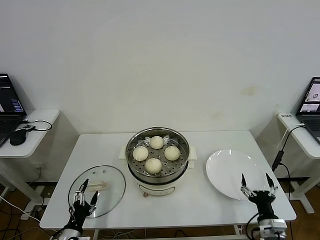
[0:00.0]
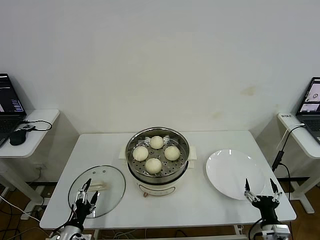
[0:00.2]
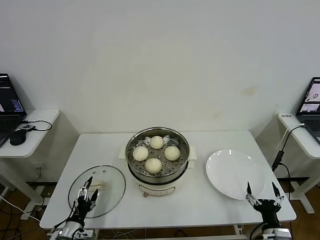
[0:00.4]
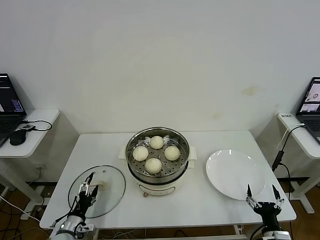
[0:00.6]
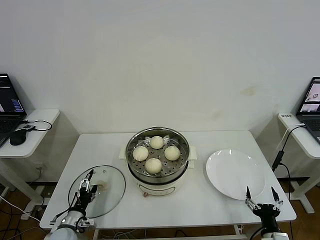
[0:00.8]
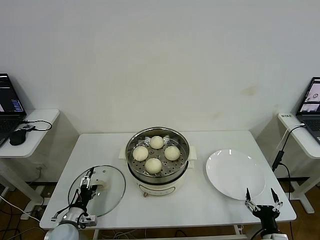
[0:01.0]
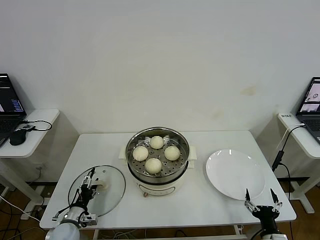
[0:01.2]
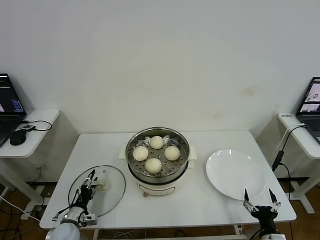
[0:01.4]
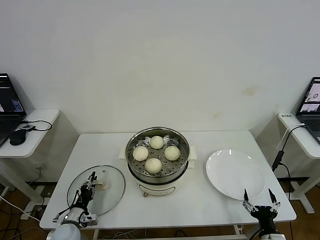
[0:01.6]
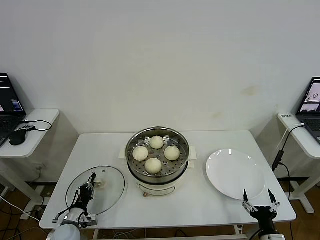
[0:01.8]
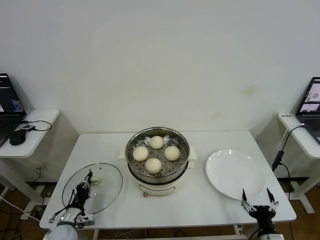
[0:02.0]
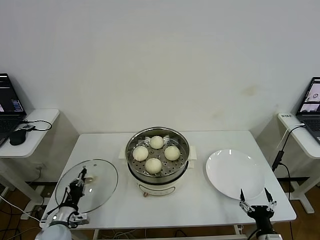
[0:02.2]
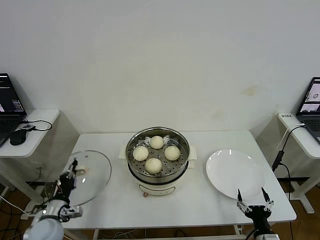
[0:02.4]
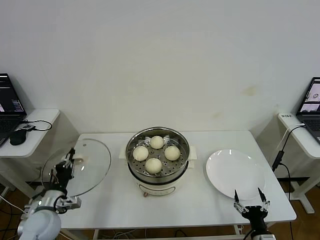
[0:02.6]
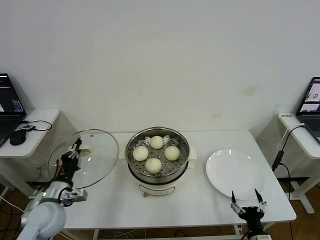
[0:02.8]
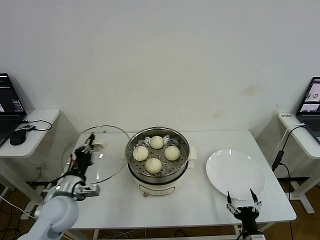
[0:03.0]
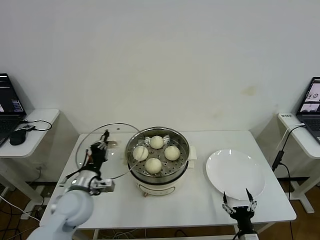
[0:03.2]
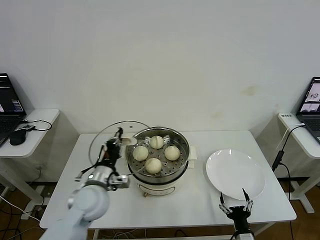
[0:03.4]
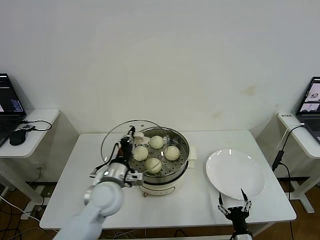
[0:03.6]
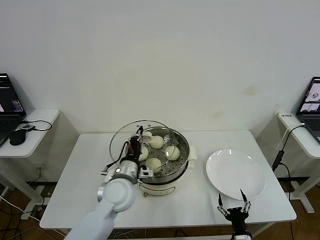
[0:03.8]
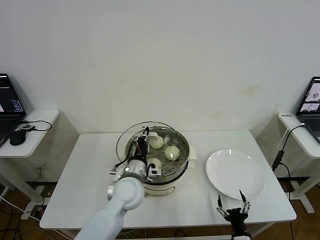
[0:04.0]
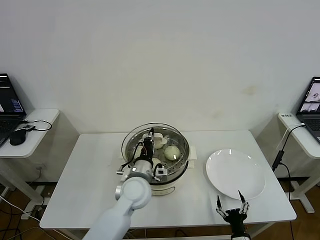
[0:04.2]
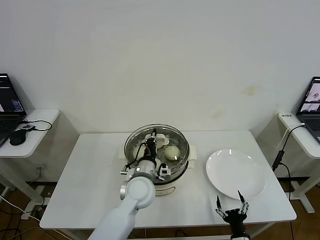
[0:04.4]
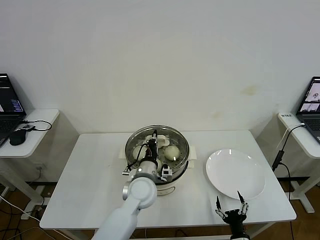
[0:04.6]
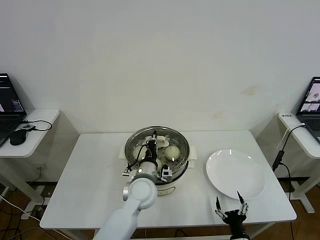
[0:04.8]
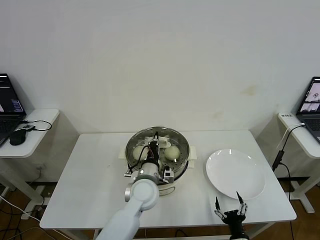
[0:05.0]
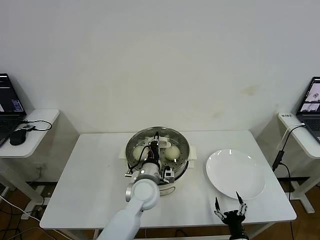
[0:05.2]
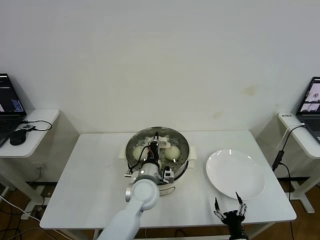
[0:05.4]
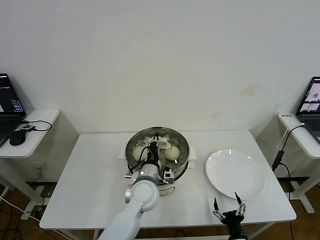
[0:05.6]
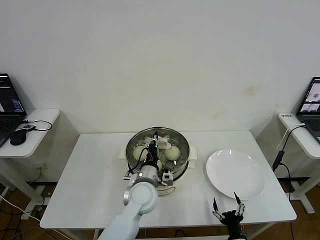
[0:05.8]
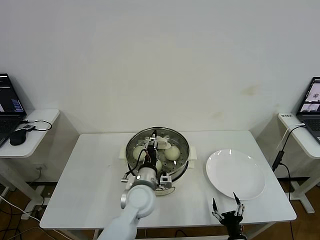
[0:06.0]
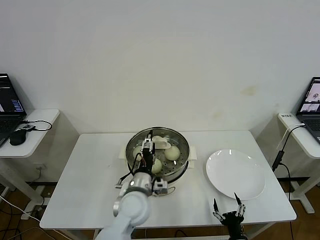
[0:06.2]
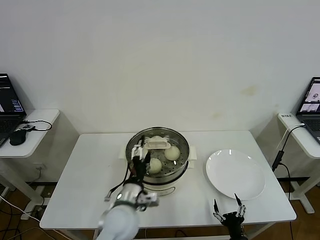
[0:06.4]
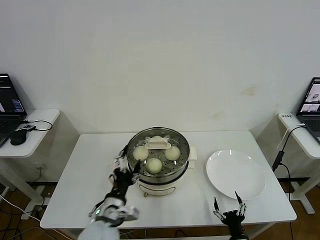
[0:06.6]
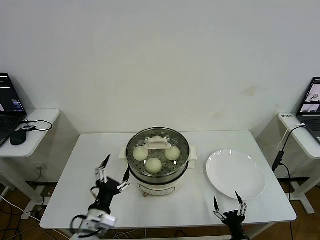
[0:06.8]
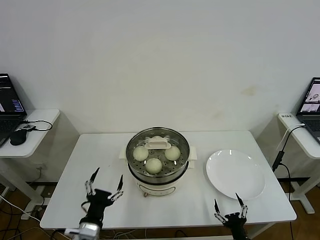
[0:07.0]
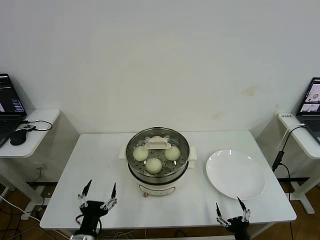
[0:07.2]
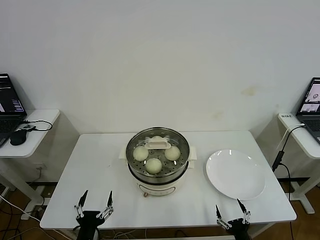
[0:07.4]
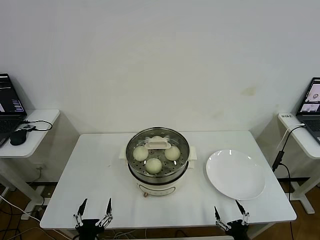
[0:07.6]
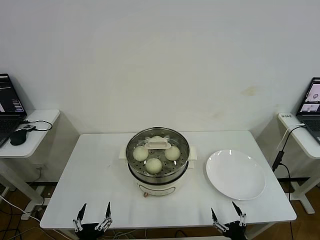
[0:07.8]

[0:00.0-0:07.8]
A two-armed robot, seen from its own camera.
Step, 0:02.0 to 0:06.2: Place the pot lid on the steamer with left gripper.
0:00.0 to 0:01.6: The left gripper goes about 10 cm forward, and closes its fingers.
0:01.6 to 0:03.2: The left gripper shifts roughly 20 cm upward and to the right, and closes, while the right gripper travels to the left by some 5 cm.
0:03.2 to 0:04.6: The left gripper heads to the right, covering roughly 20 cm.
0:04.6 to 0:06.2: The left gripper opens up.
0:06.2 to 0:07.8: The left gripper is displaced backward, to the left and downward by about 30 cm. The right gripper ends up approximately 5 cm from where it was.

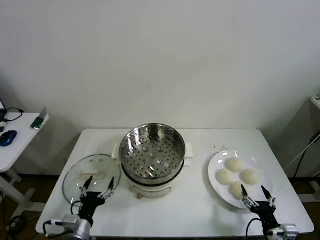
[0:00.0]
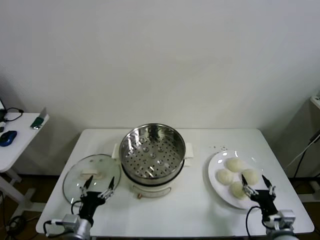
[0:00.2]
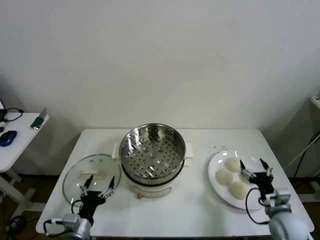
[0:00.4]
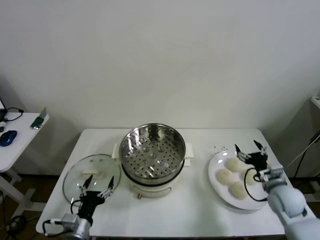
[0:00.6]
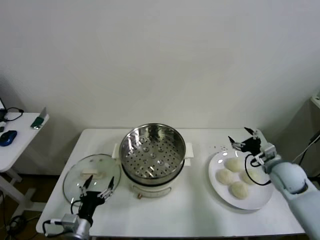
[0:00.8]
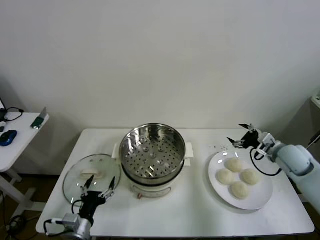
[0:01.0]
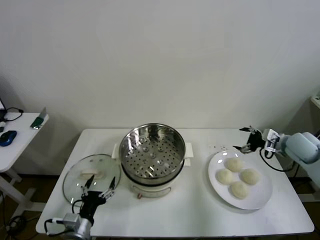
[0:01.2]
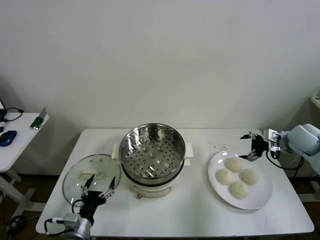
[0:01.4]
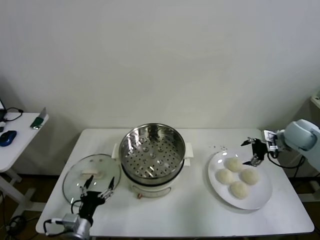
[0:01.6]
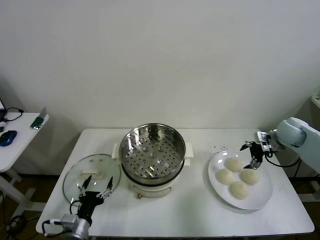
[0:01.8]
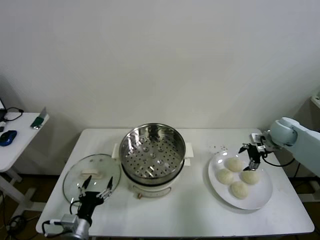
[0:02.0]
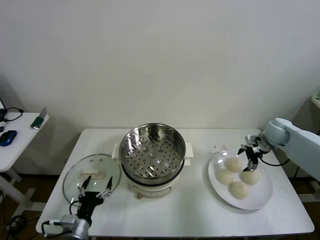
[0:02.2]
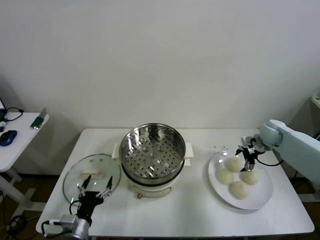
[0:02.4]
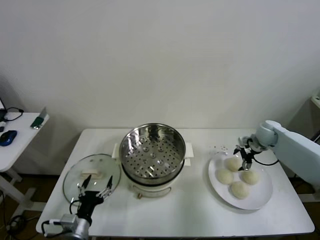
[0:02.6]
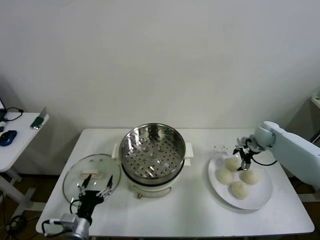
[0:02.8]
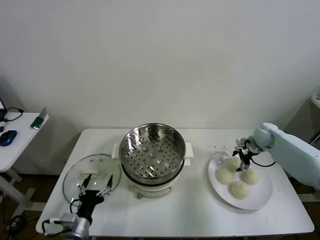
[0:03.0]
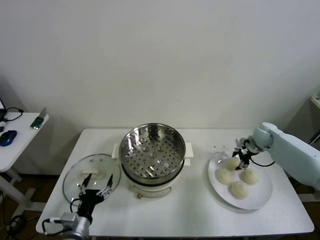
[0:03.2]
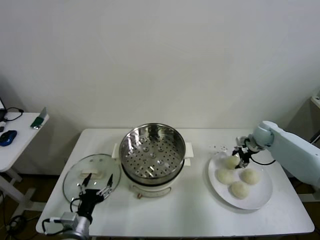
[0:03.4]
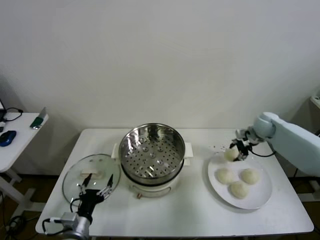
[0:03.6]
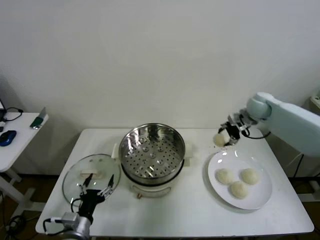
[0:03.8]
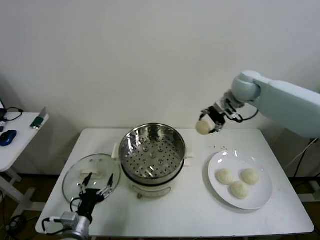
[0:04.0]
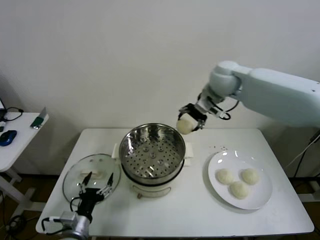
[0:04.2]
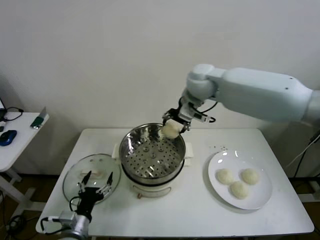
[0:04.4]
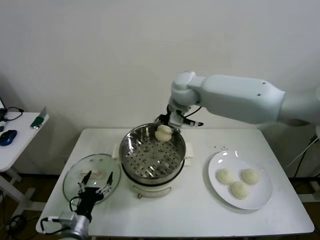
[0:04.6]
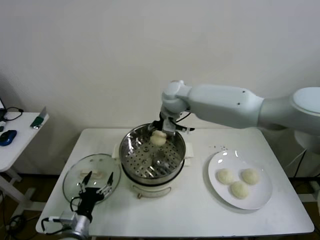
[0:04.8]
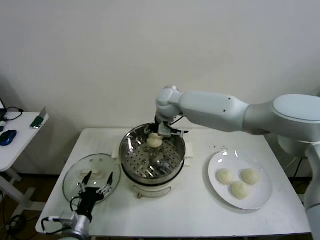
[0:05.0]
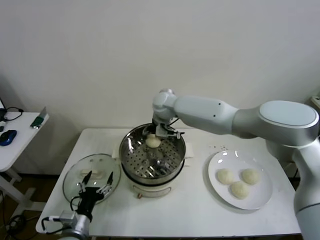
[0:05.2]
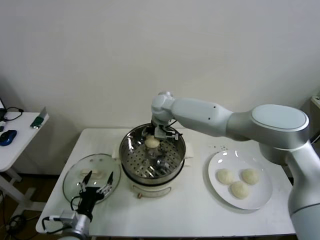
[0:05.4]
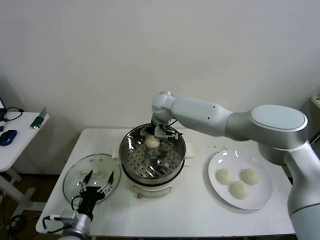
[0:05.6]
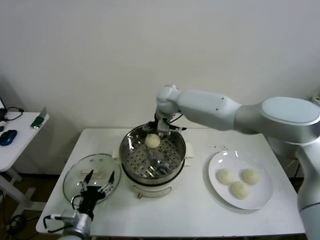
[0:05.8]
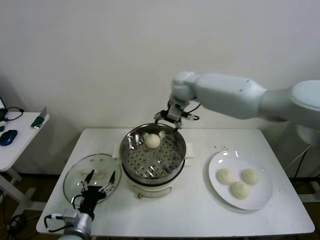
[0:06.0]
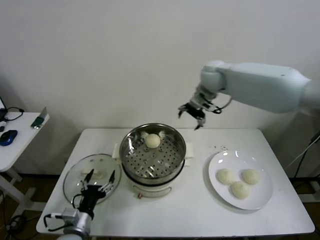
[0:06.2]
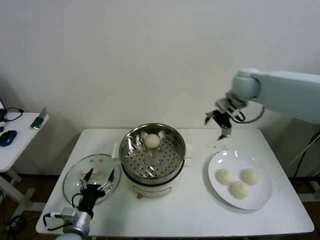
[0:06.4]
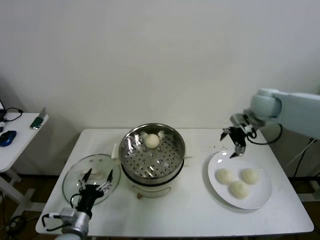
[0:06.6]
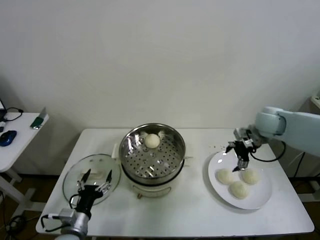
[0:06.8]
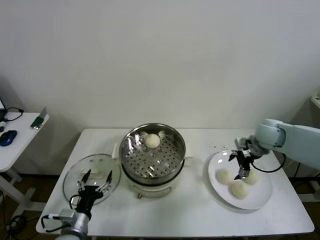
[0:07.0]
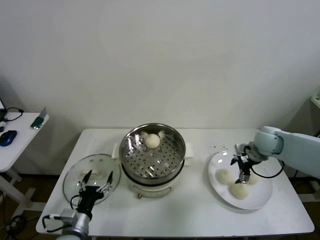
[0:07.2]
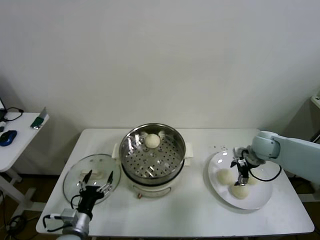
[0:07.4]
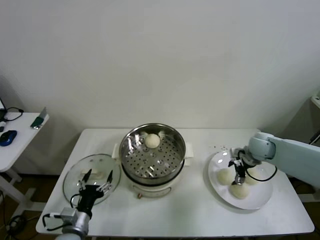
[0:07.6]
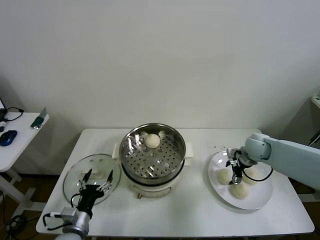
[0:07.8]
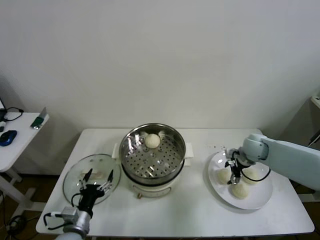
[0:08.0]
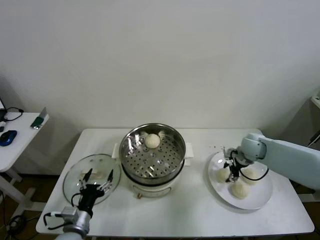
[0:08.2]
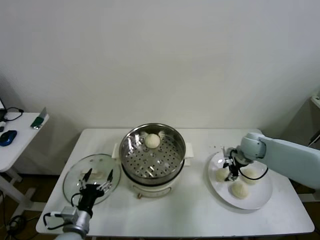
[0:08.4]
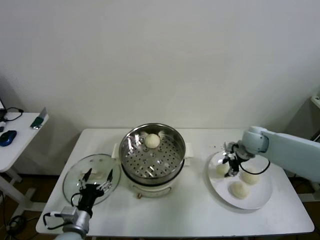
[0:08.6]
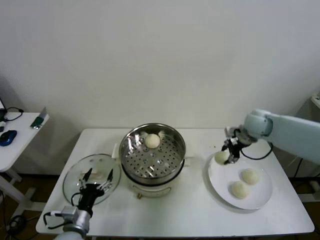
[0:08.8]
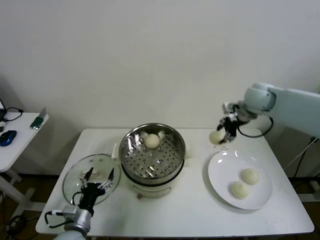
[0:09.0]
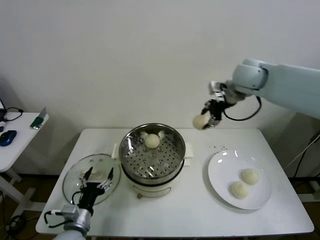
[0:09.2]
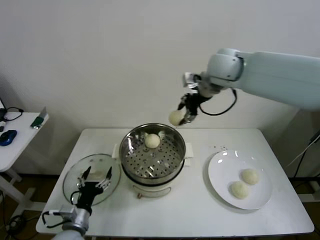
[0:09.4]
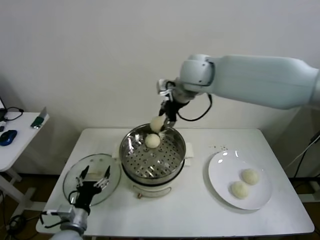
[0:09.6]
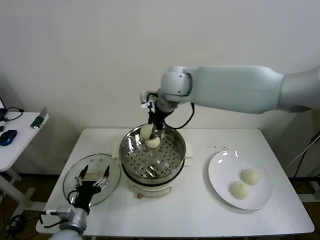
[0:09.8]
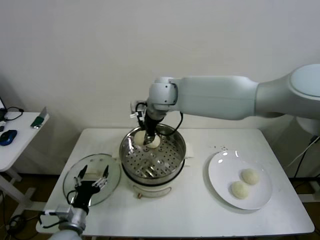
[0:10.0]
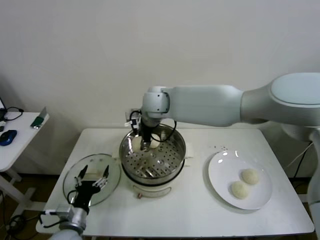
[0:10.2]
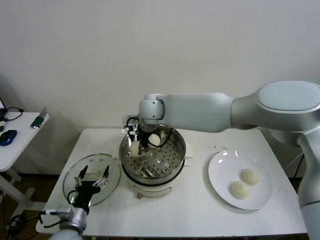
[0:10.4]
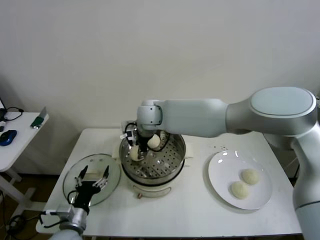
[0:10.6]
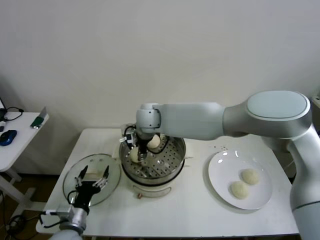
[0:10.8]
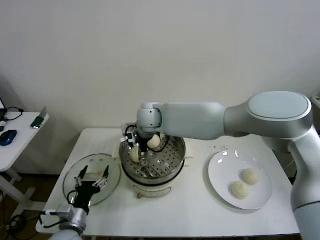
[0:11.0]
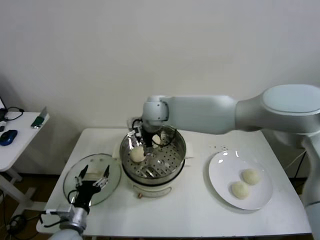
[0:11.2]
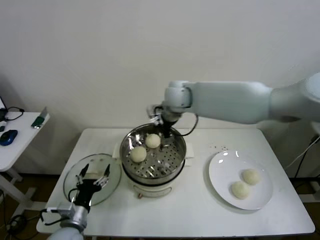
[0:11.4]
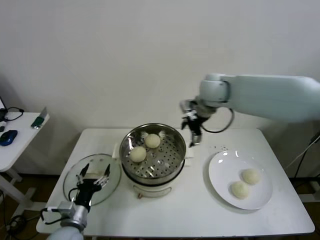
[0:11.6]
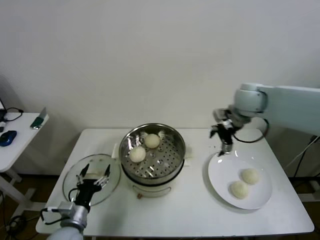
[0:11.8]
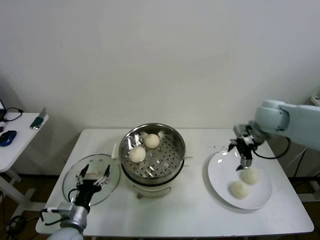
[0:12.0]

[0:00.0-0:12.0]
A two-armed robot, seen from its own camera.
Step, 0:00.0 to 0:03.0: Grasp the baozi in the plate with right gripper.
Step, 0:03.4 to 0:05.6: Place the baozi on the steamer with right gripper.
Step, 0:05.8 to 0:08.0: Grasp the baozi in the plate with right gripper.
Step, 0:08.2 to 0:11.0: Place the baozi on the steamer with right gripper.
0:01.6 to 0:03.0: The right gripper is displaced downward and forward by approximately 10 cm, and closes up.
0:03.0 to 0:04.4: The right gripper moves to the left and upward, about 40 cm.
0:04.4 to 0:06.0: The right gripper travels forward by approximately 5 cm, travels to the left and back again, about 10 cm each way, and opens up.
0:06.0 to 0:07.6: The right gripper goes roughly 35 cm to the right, downward and backward.
0:07.6 to 0:09.0: The right gripper heads upward, covering roughly 20 cm, and closes.
0:09.0 to 0:10.4: The right gripper moves to the left, some 30 cm.
0:10.4 to 0:12.0: The right gripper travels to the right by about 40 cm, and opens up.

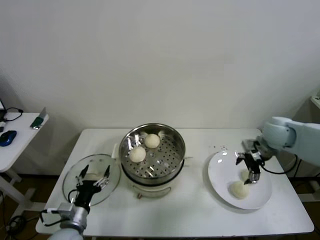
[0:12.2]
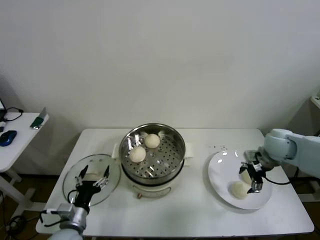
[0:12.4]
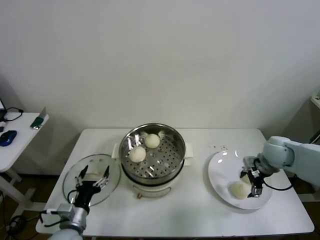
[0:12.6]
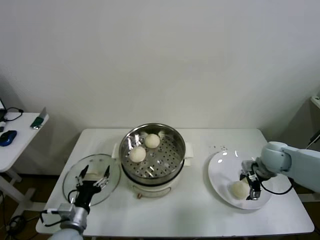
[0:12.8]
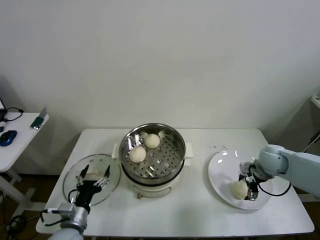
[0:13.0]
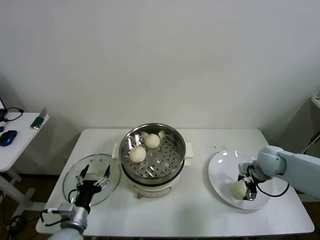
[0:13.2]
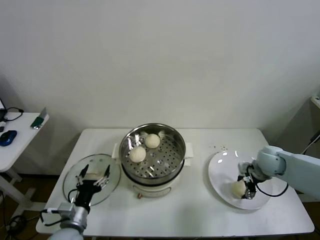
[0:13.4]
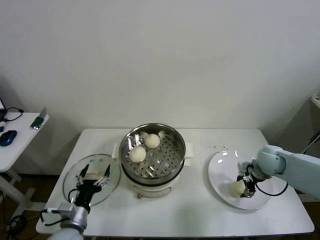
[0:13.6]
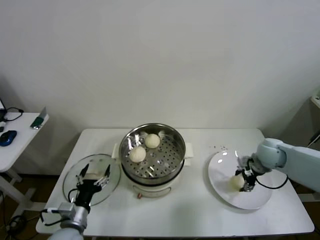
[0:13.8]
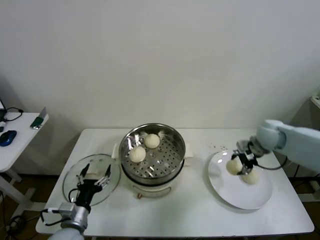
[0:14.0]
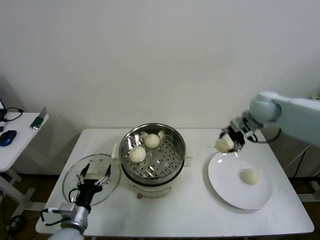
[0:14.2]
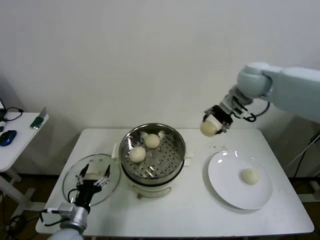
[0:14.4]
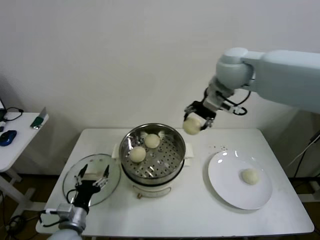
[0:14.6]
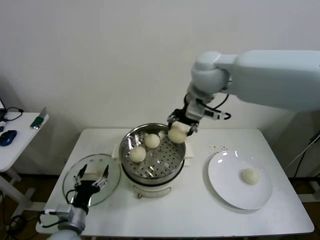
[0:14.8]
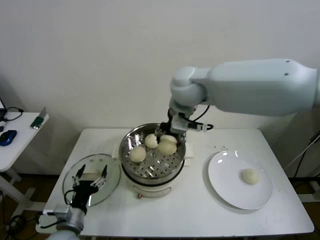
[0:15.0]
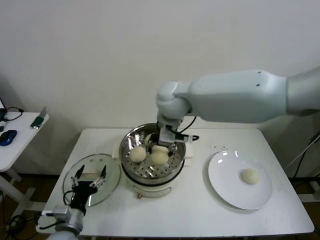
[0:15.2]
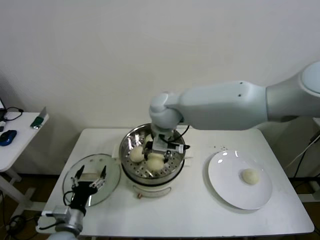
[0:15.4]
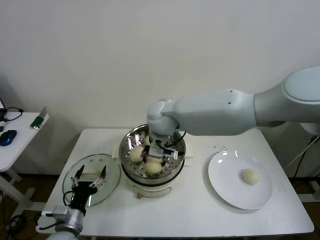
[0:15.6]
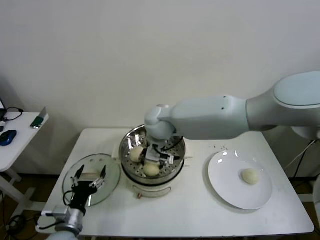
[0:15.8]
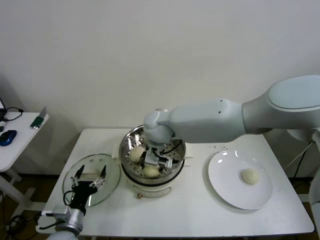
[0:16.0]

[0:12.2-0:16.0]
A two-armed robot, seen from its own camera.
Step, 0:12.2 to 0:13.4: Grasp the baozi in the plate with right gripper.
0:12.2 to 0:13.4: The right gripper is displaced downward by roughly 10 cm, and closes.
0:13.4 to 0:14.8: The right gripper moves upward and to the left, about 40 cm.
0:14.8 to 0:16.0: The right gripper heads downward and to the left, covering about 20 cm.
